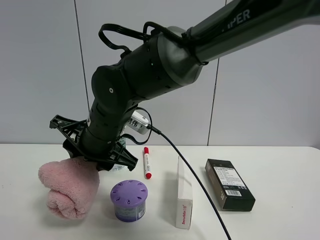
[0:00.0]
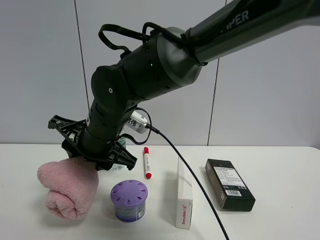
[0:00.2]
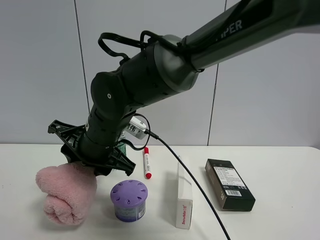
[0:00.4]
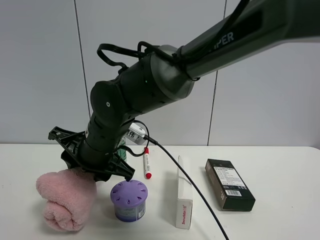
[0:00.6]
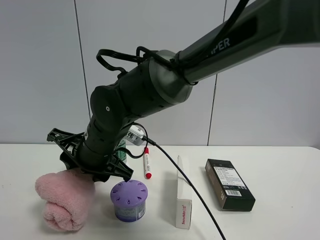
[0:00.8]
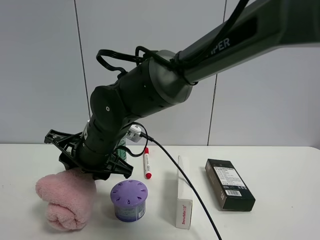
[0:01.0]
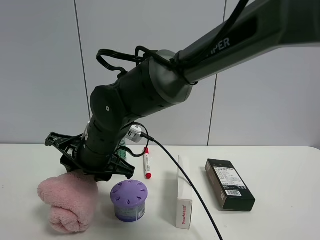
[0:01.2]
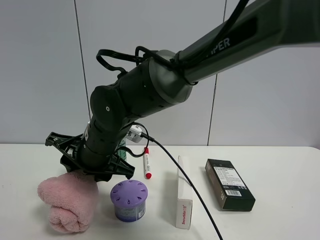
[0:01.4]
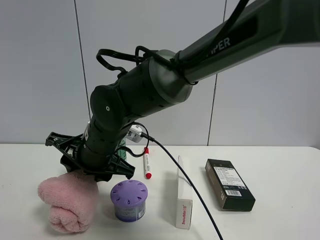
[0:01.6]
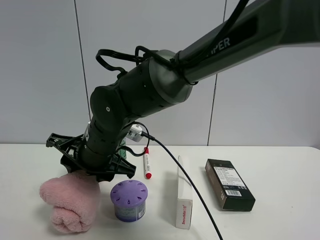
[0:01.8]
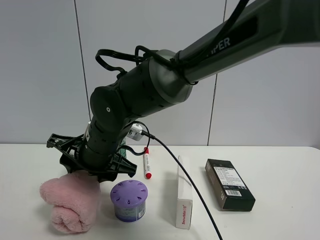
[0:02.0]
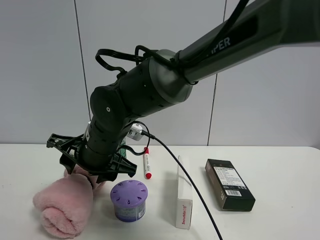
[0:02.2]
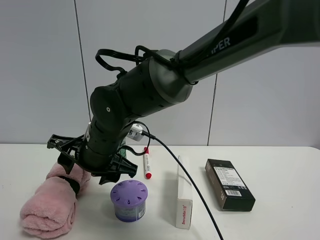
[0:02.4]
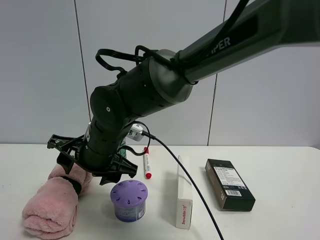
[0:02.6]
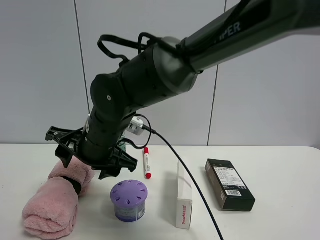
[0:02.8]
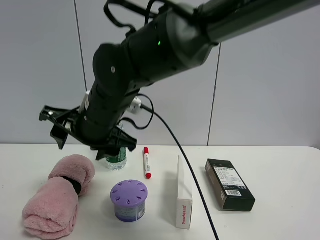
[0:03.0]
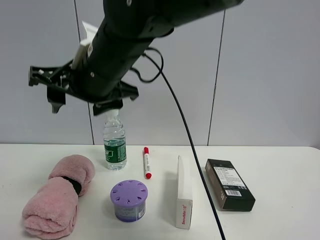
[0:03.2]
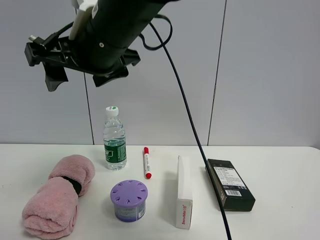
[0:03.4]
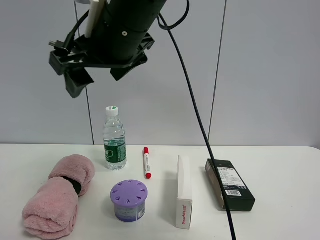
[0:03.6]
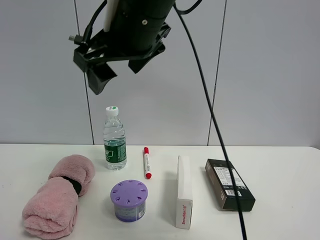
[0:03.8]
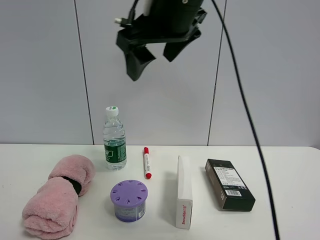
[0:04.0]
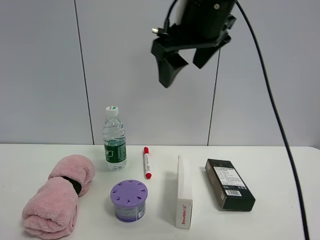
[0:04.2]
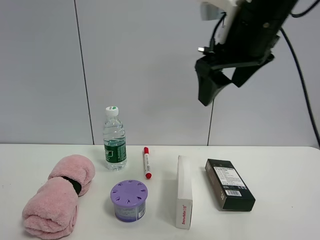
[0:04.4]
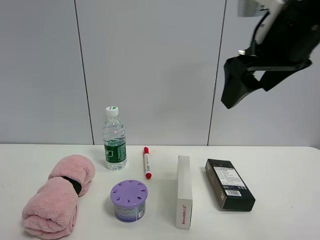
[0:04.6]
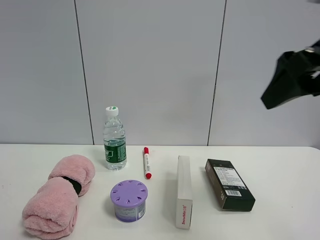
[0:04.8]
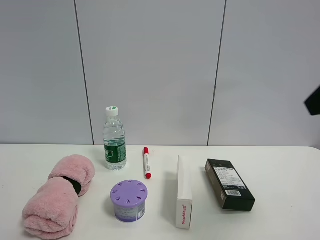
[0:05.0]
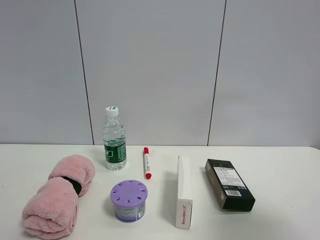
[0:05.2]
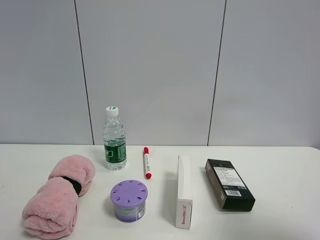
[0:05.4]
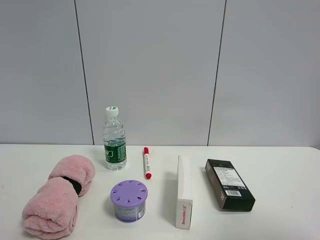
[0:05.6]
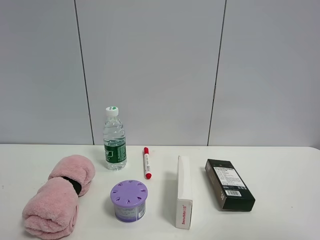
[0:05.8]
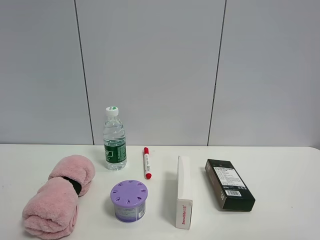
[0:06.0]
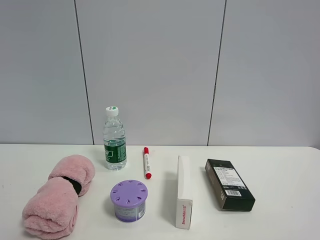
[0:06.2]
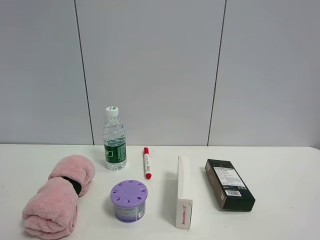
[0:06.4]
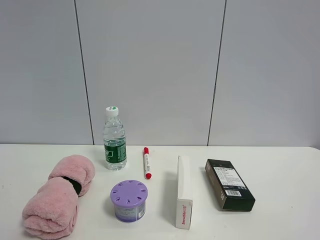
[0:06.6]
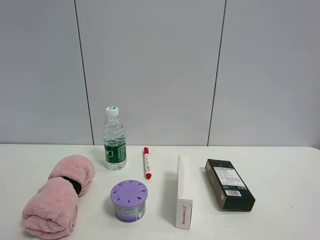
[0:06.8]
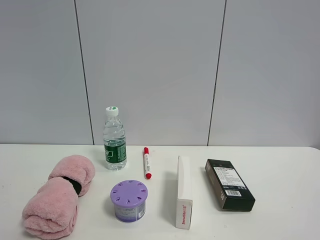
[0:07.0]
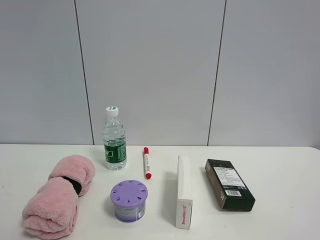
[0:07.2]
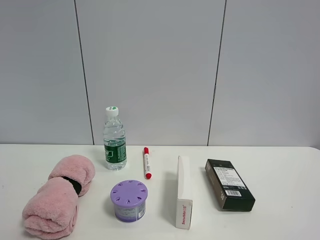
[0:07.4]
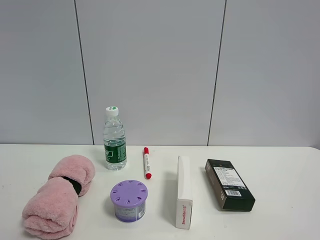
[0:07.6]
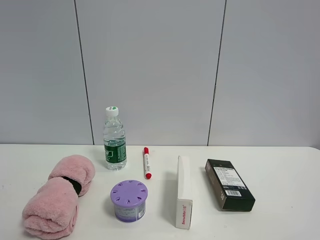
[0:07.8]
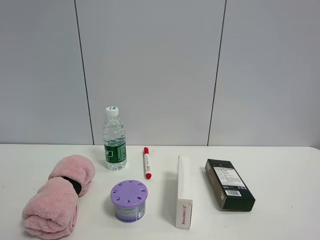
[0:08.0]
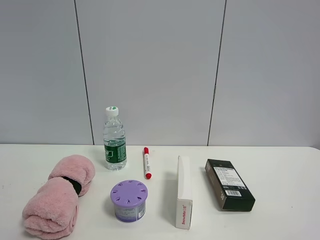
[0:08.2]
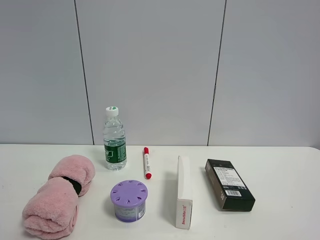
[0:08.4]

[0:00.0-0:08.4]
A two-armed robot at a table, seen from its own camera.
Task of the whole recording: the gripper move the object.
Step, 0:00.0 to 0:03.0: Place the pink towel on the table with the right gripper.
0:01.4 to 0:02.8: The right gripper opens its fingers.
0:02.8 to 0:04.2: The right gripper travels upward and to the right by some 25 cm.
0:04.2 to 0:05.6: The right gripper is displaced backward and to the right by some 35 cm.
0:05.6 to 0:07.0: The right gripper moves downward, approximately 5 cm.
0:07.0 to 0:08.4: The two grippers keep their place.

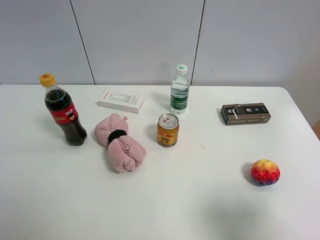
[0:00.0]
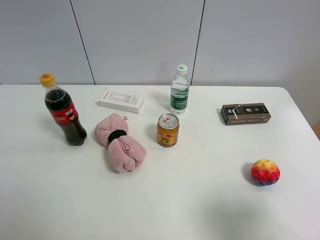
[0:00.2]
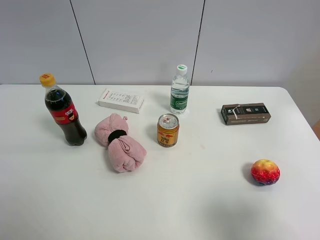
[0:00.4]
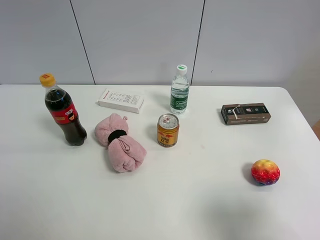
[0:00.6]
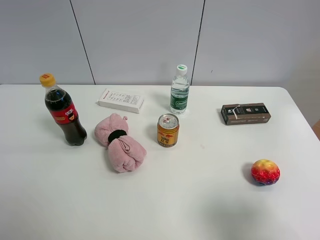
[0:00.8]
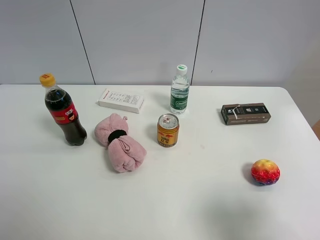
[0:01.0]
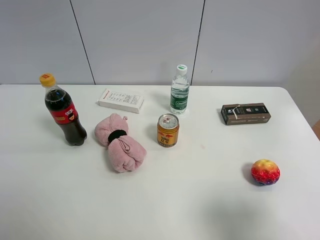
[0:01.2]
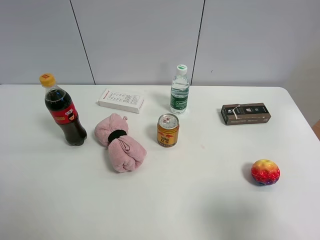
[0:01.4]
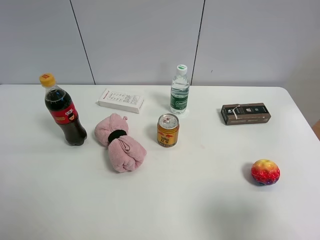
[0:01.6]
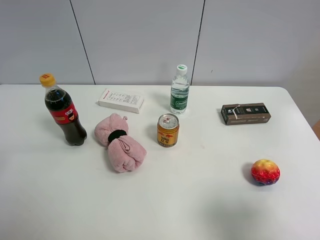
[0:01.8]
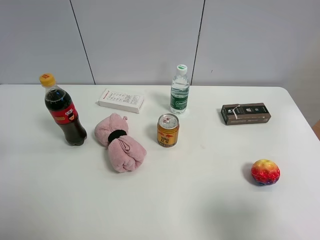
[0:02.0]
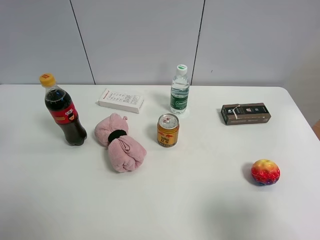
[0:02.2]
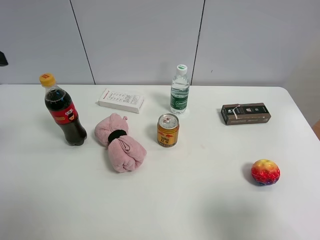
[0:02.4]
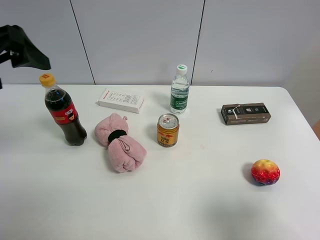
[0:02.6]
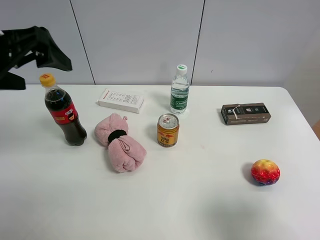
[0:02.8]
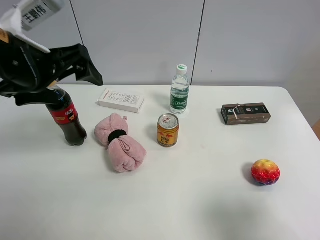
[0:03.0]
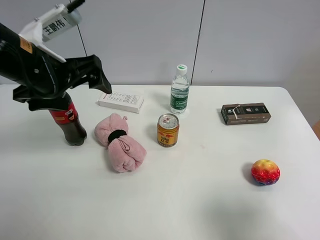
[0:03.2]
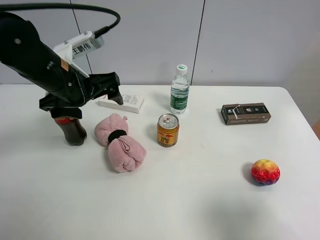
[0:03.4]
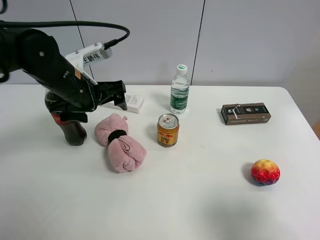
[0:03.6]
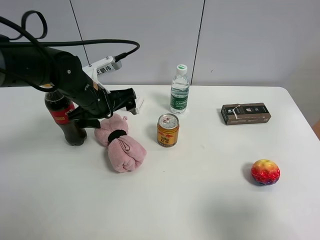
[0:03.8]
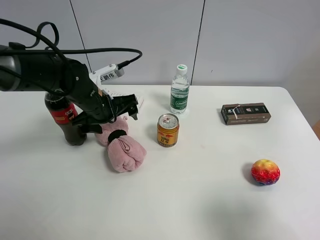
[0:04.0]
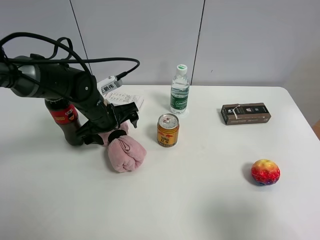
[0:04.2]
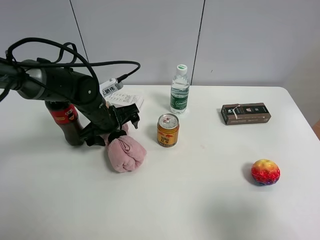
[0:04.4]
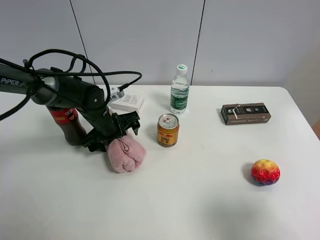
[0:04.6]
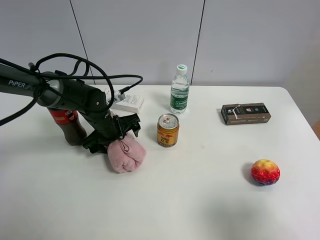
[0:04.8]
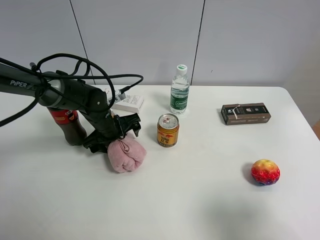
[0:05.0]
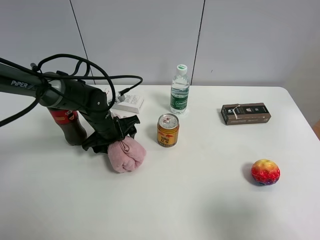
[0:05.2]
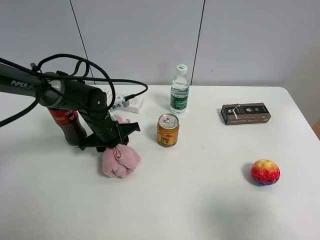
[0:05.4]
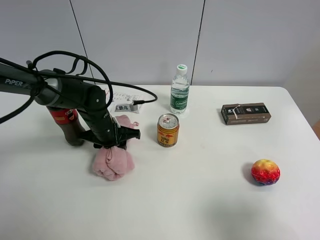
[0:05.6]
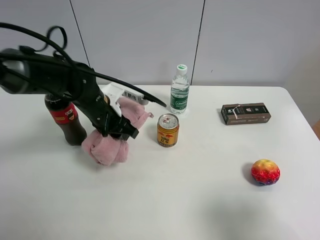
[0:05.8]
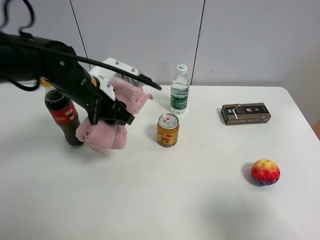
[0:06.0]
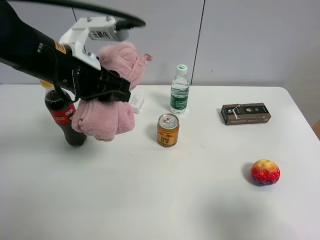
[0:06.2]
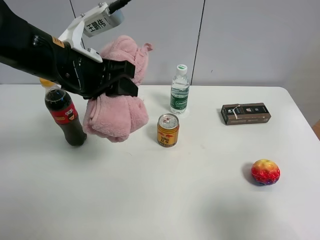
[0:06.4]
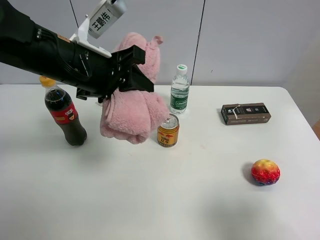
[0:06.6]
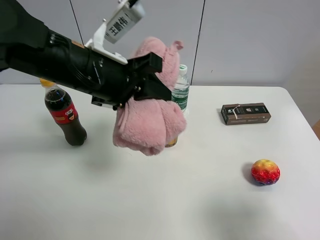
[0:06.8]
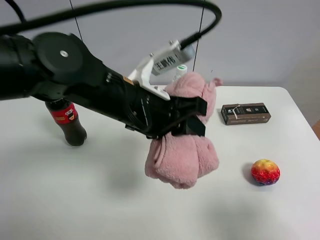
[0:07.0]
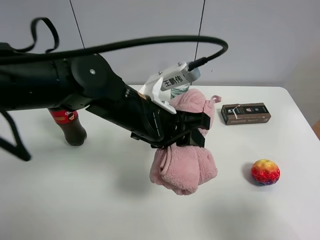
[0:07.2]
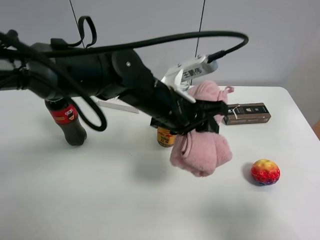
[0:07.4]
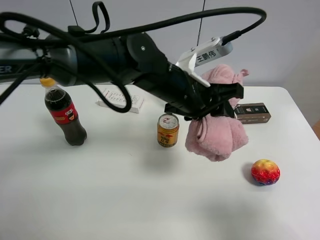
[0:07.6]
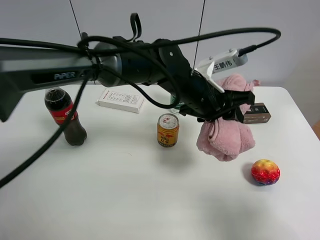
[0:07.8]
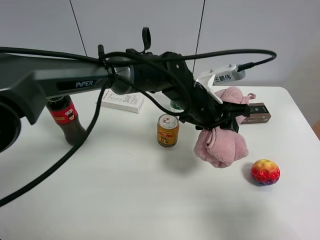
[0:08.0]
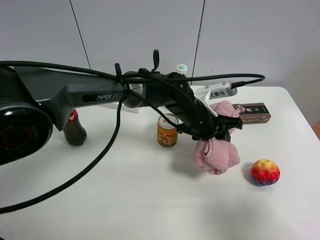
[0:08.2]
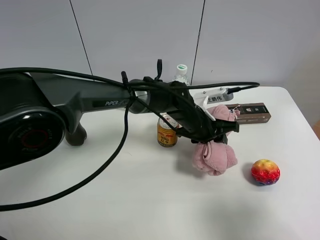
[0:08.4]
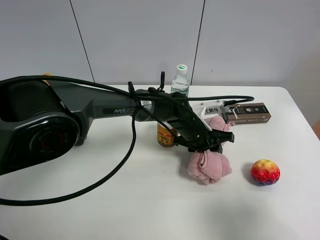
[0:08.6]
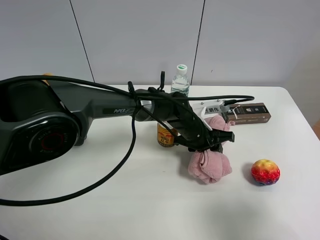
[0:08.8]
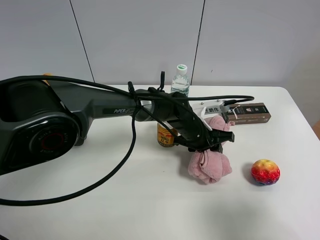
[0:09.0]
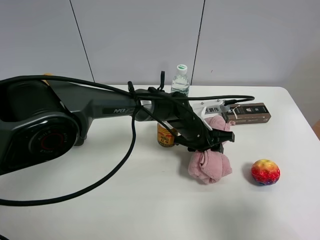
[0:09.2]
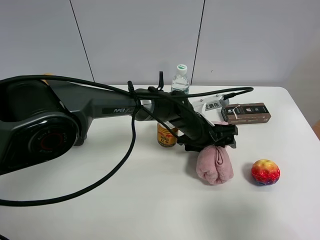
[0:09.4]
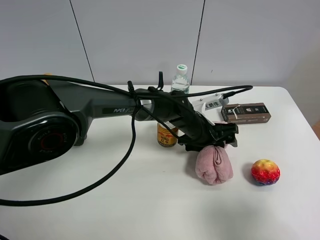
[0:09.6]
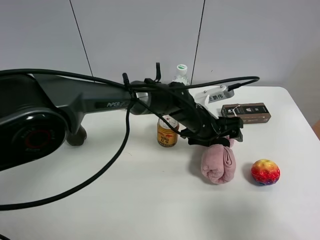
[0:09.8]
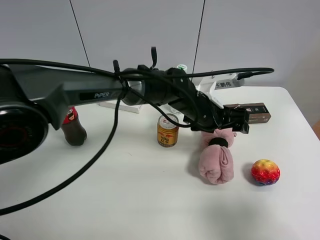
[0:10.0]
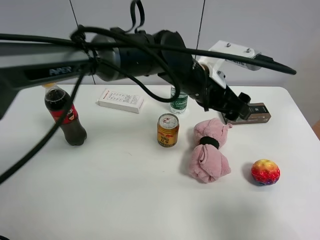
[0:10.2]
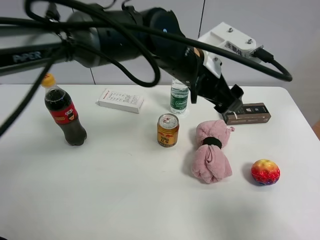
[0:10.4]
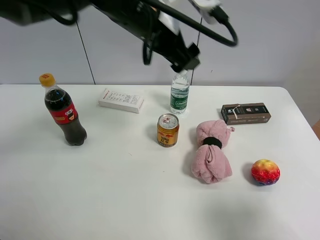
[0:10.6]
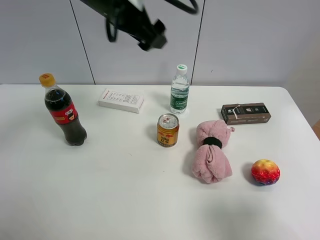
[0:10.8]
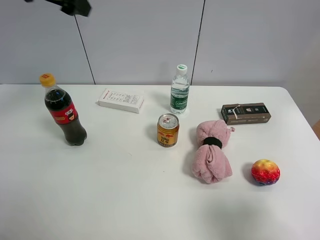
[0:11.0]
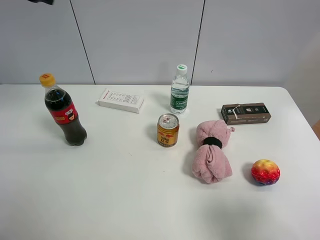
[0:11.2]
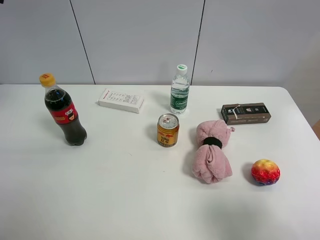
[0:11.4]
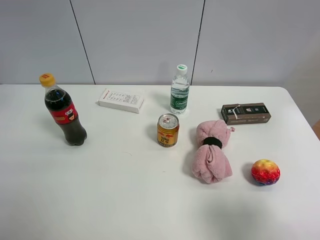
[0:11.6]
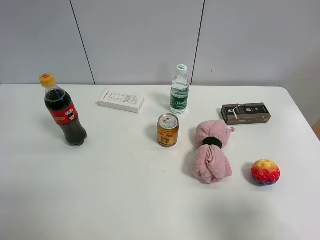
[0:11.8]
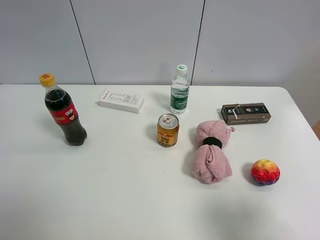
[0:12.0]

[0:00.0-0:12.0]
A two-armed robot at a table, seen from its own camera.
Task of the whole recording: the gripper move the object.
Step, 0:00.0 to 0:05.2: Grasp the pink towel with the left gripper.
Step, 0:05.4 to 0:09.8: Place the pink towel on the table with the left gripper.
0:01.6 to 0:03.0: The left gripper shifts approximately 25 cm forward and to the right.
0:03.0 to 0:04.4: The left gripper moves downward and forward, roughly 20 cm.
0:04.4 to 0:06.0: The left gripper travels upward by some 10 cm, and closes.
0:06.0 to 0:07.6: The left gripper travels to the right by approximately 20 cm.
0:07.6 to 0:09.0: The left gripper goes some 15 cm downward.
0:09.0 to 0:10.4: The left gripper heads upward, covering approximately 20 cm, and opens up.
0:10.4 to 0:12.0: The left gripper moves to the left, about 40 cm.

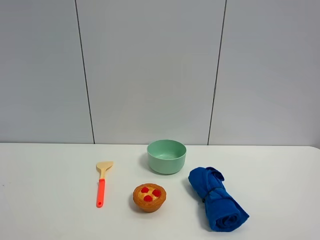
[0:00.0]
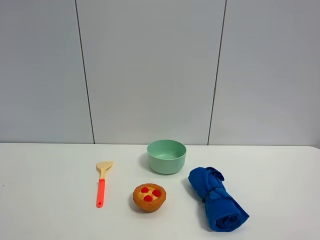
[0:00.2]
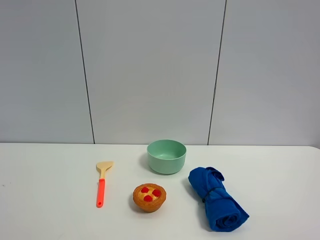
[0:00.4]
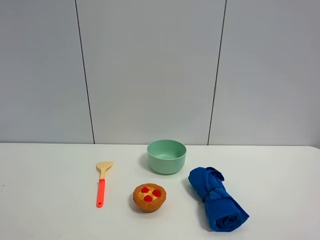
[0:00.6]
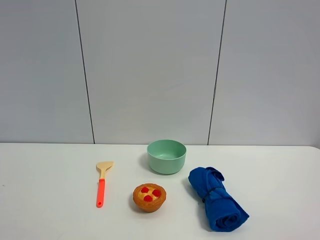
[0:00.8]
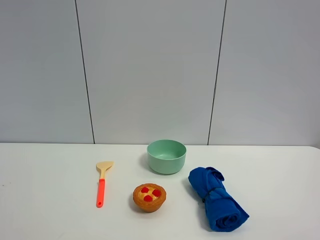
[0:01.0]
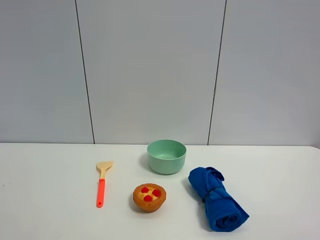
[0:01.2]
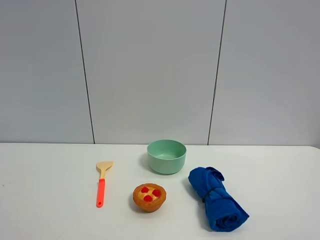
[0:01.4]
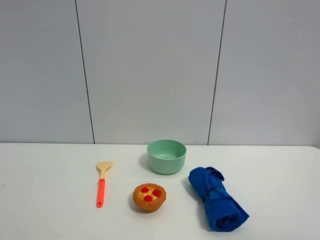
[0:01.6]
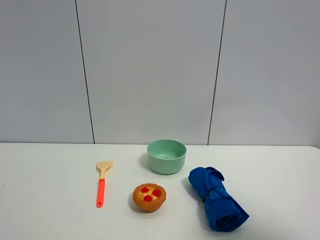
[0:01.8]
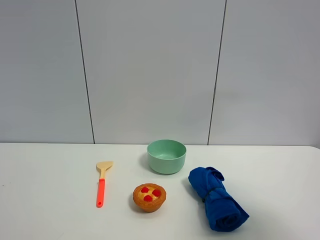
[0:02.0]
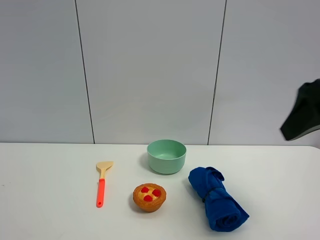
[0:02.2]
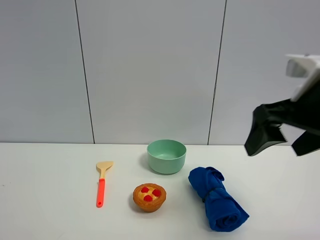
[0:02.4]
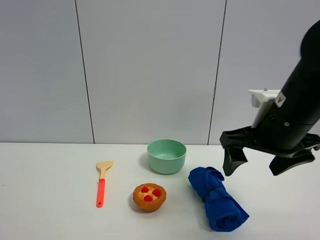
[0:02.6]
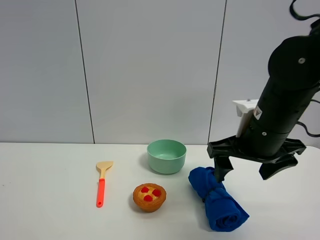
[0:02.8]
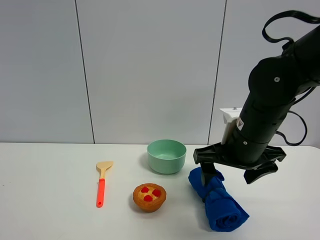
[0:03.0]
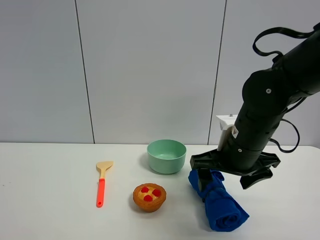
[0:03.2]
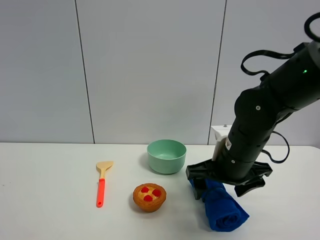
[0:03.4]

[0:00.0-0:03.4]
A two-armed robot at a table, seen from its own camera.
Task of the whole recording: the gripper move the object.
0:01.6 to 0:03.4: The right gripper moves forward, downward and to the left, some 35 cm.
